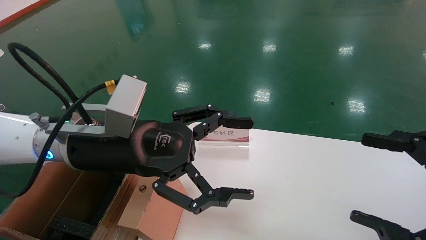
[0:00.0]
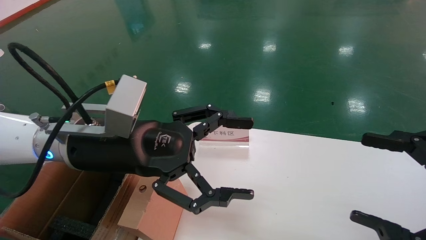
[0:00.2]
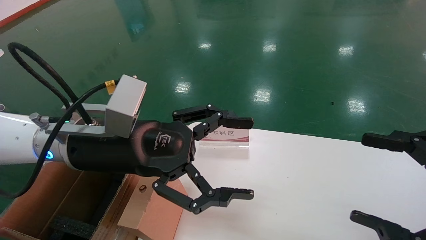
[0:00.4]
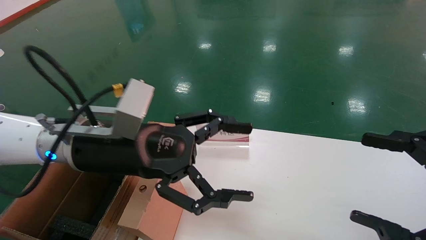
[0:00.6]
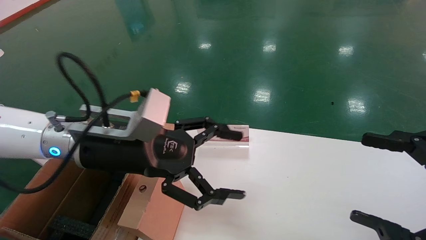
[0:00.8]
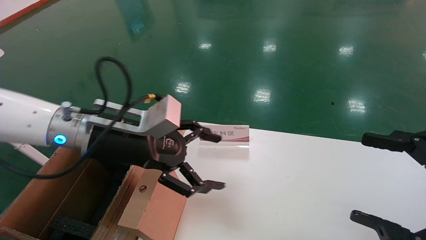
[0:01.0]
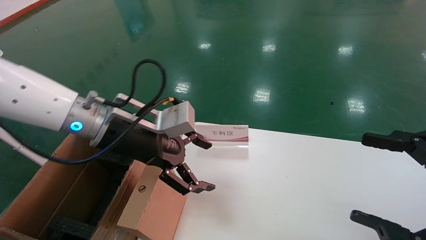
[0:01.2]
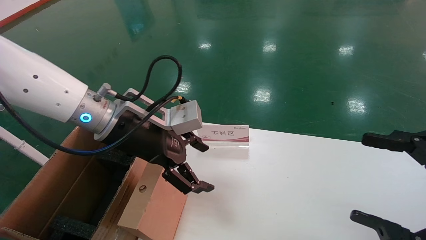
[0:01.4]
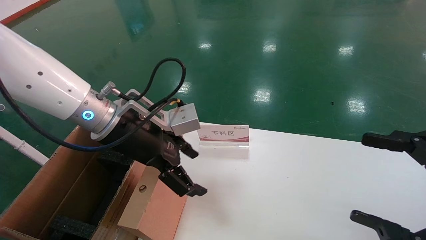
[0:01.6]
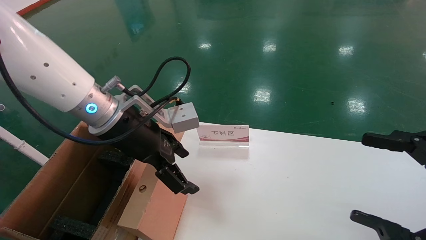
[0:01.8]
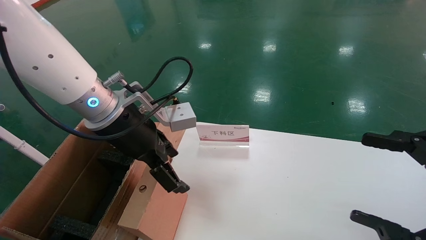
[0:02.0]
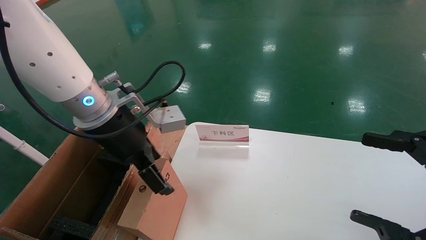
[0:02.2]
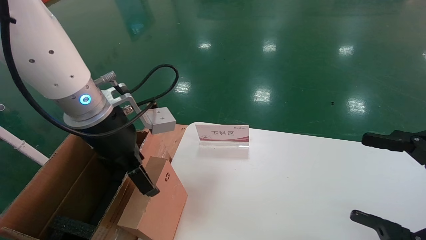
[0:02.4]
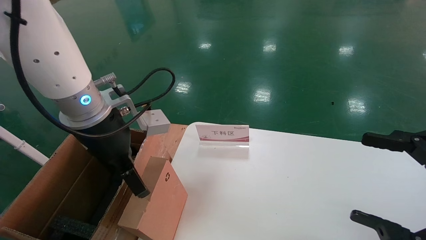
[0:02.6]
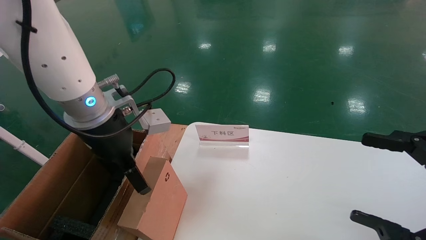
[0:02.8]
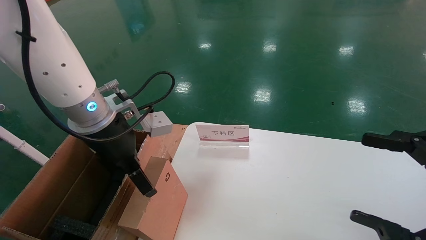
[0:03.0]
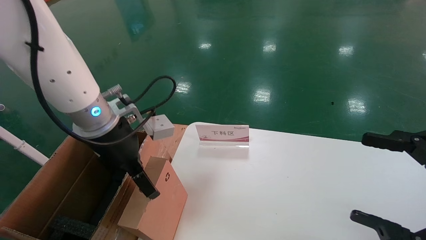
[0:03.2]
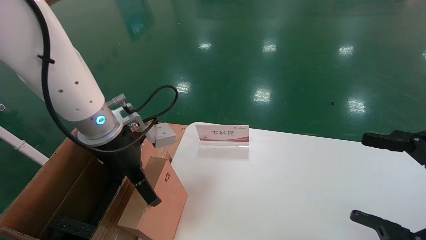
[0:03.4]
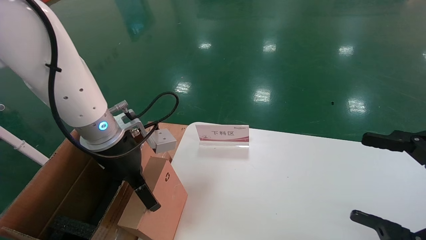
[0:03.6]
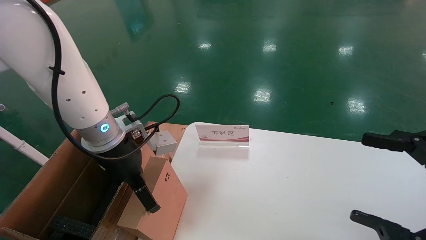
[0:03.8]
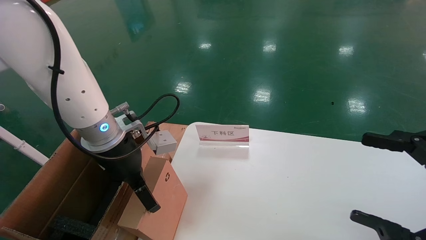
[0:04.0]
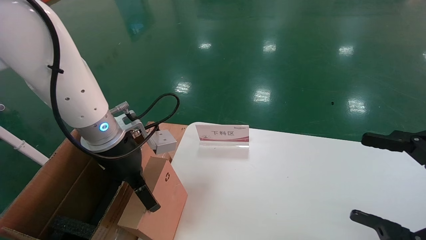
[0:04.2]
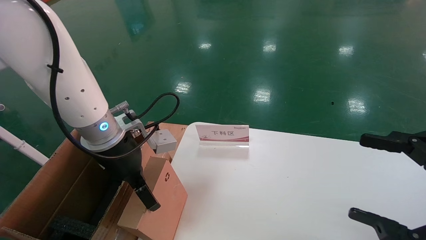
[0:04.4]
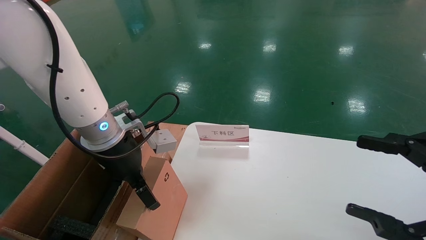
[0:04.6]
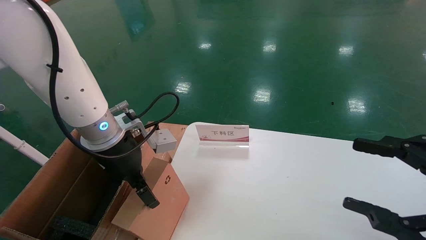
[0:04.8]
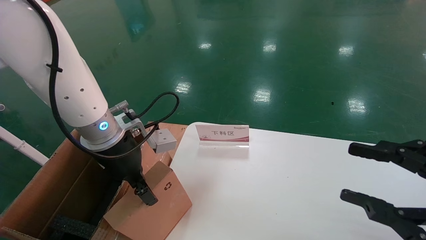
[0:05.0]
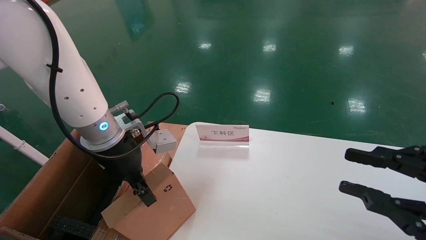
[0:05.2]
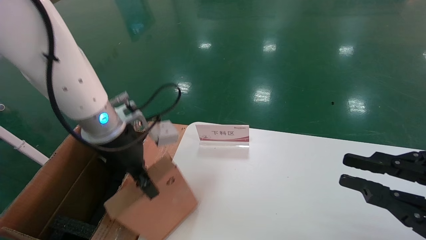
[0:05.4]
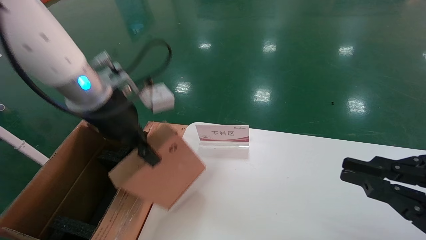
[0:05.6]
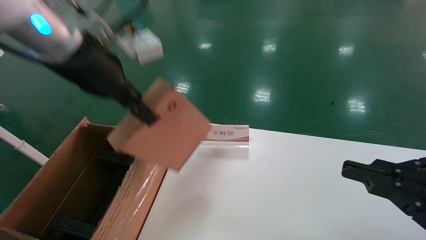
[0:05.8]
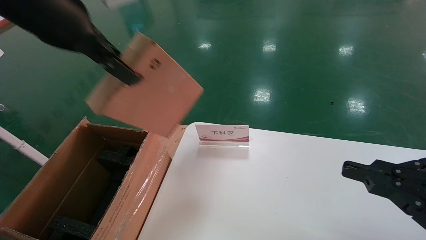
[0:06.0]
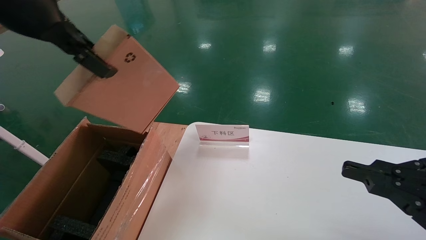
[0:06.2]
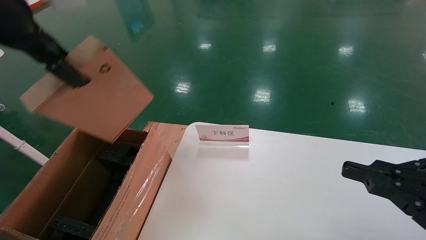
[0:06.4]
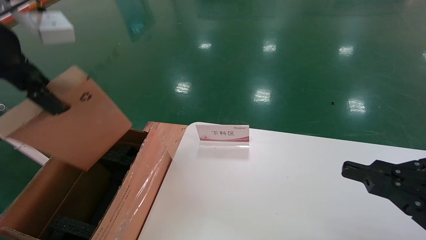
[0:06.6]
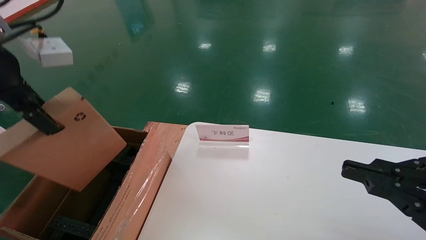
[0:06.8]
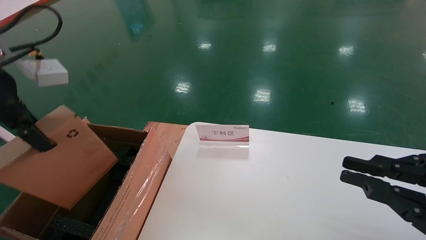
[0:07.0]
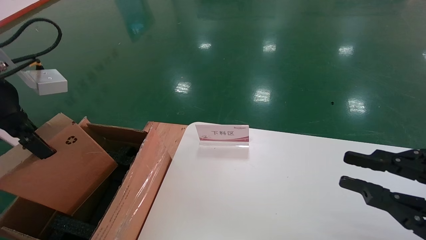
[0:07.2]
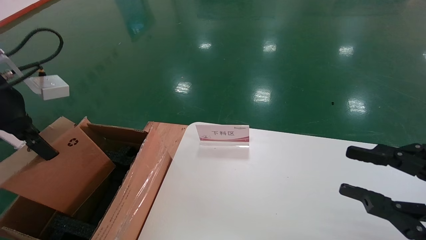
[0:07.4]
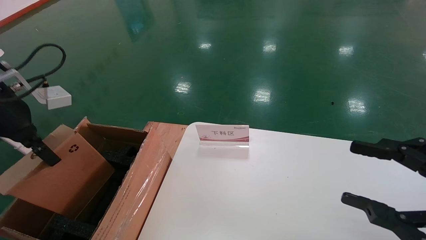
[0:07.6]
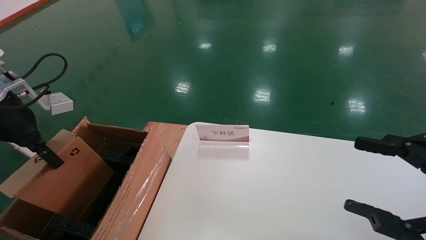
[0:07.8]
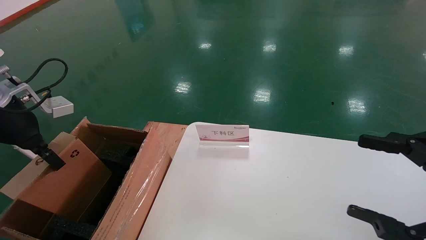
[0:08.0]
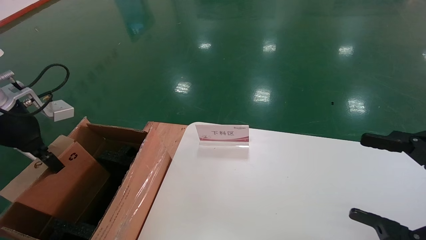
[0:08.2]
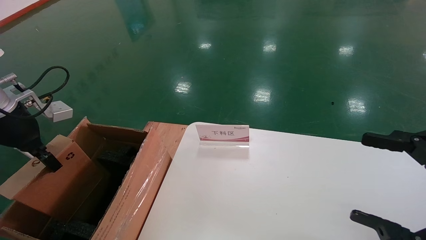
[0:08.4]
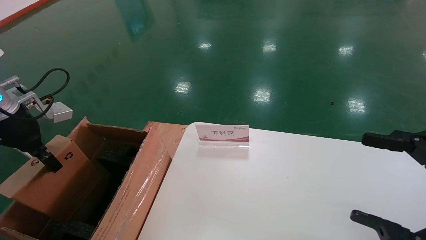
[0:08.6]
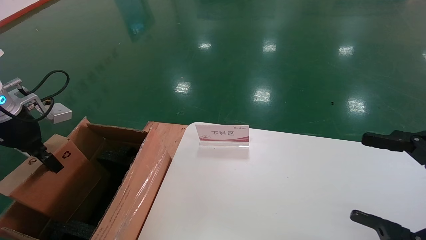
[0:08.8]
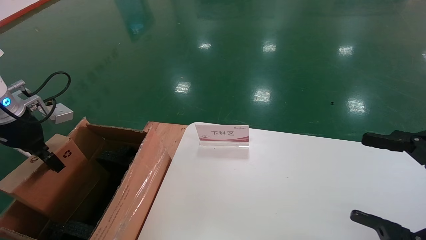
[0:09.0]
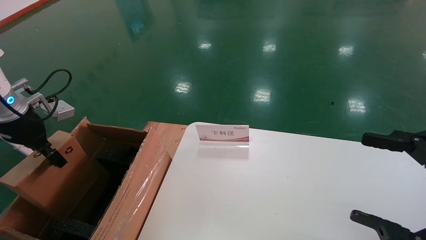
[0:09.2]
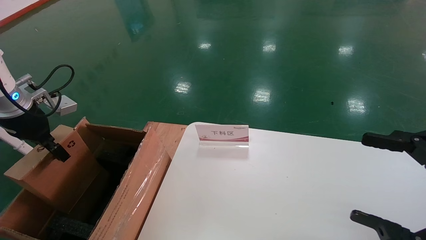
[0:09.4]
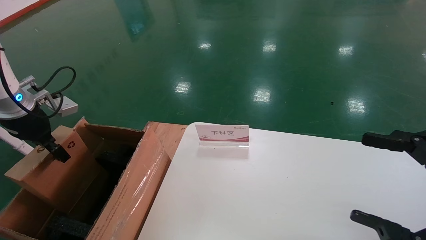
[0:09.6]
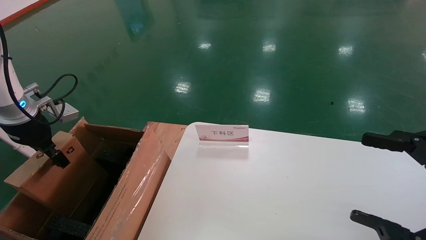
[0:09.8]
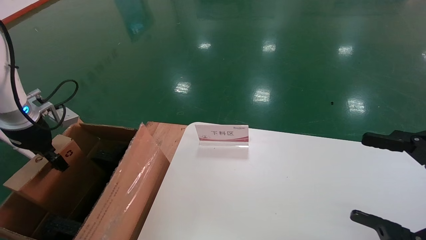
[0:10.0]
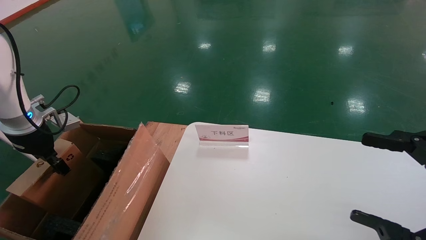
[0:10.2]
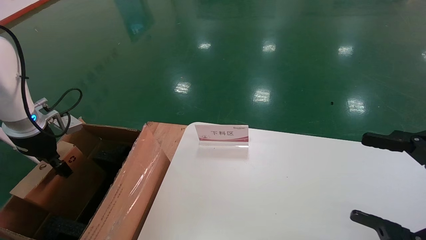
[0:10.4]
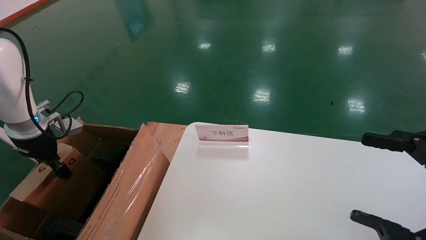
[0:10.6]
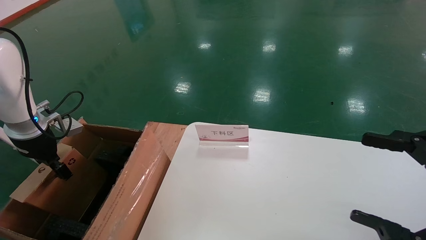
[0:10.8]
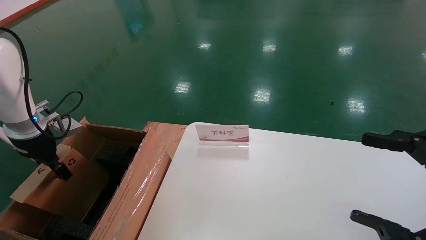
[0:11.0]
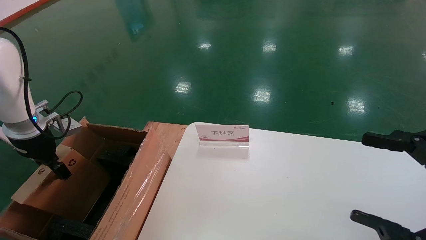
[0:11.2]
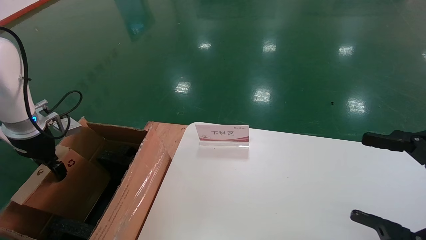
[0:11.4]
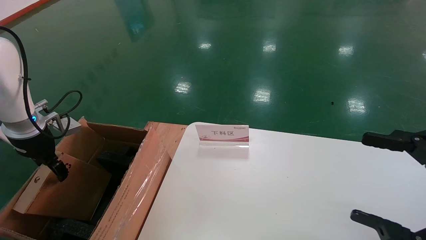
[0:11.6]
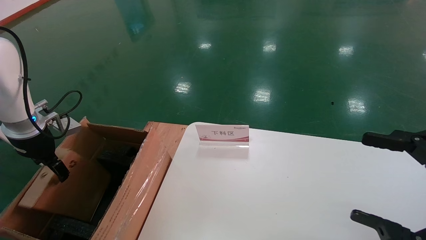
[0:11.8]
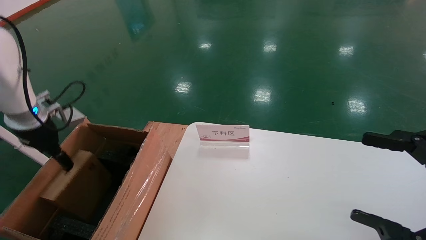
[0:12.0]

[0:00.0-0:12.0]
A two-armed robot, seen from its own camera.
Task of the whole recording: pick up the small cardboard box and load it into the large cardboard box.
Step, 0:00.8 to 0:05.4: Pick up the mouse and power cord box.
0:00.0 to 0:01.6: The left gripper moves forward, roughly 5 cm.
0:03.0 to 0:04.4: There are only small adjustments of the grippers.
0:04.4 to 0:06.0: The right gripper closes. Meanwhile the left gripper heads upward, covering roughly 20 cm, and closes up.
0:06.0 to 0:07.6: The left gripper travels to the left and downward by approximately 20 cm. Meanwhile the right gripper opens up.
0:07.6 to 0:09.0: The left gripper moves downward and to the left, about 10 cm. Meanwhile the right gripper opens its fingers.
0:09.0 to 0:10.4: The left gripper is displaced downward by about 5 cm.
0:10.4 to 0:12.0: The left gripper opens up.

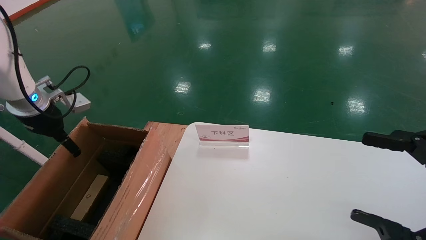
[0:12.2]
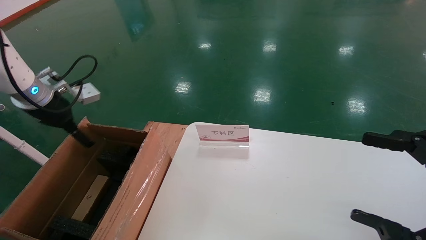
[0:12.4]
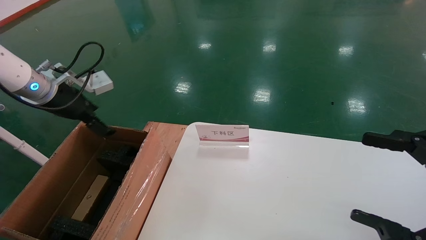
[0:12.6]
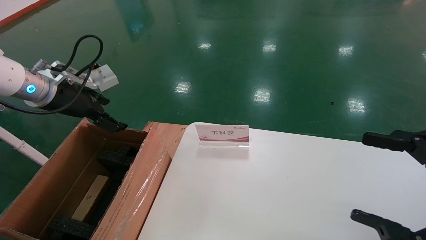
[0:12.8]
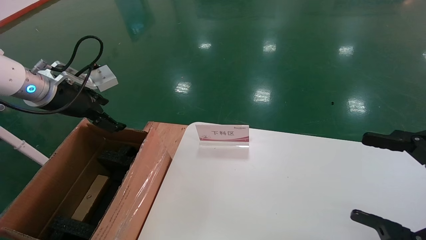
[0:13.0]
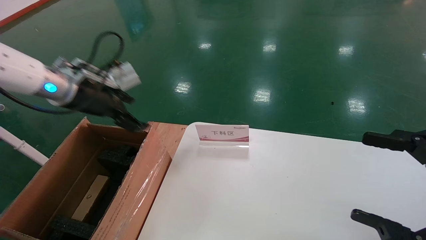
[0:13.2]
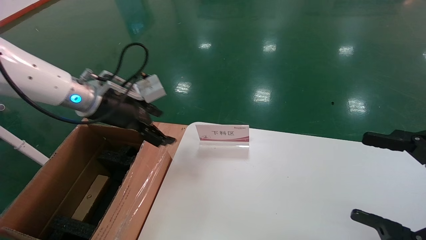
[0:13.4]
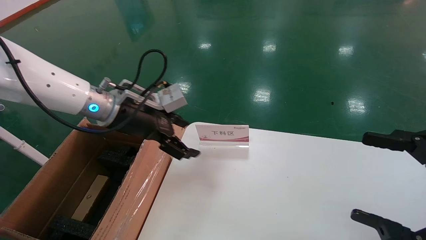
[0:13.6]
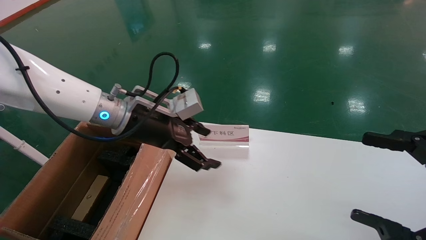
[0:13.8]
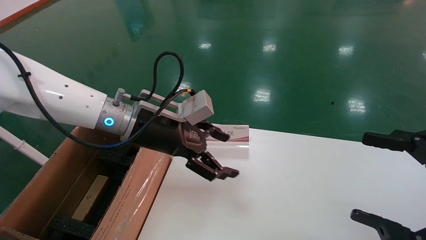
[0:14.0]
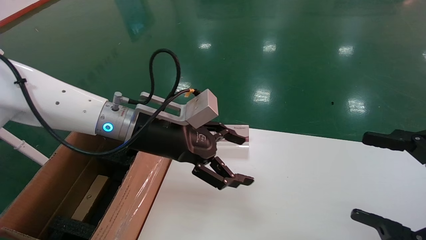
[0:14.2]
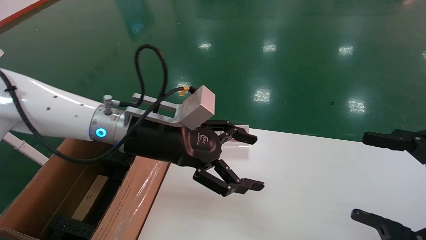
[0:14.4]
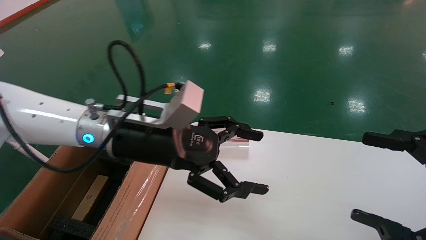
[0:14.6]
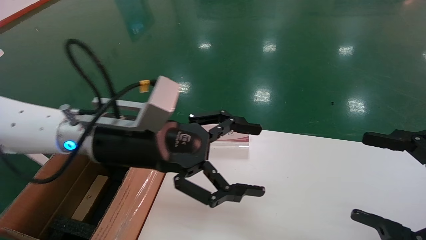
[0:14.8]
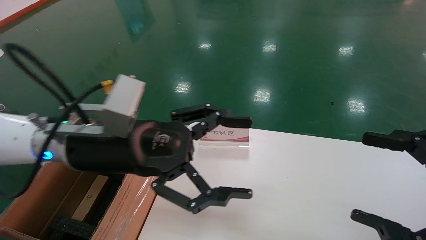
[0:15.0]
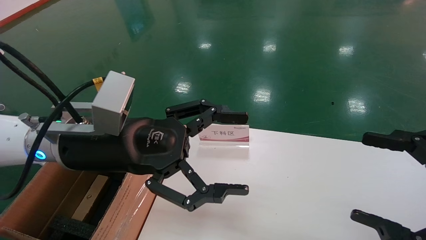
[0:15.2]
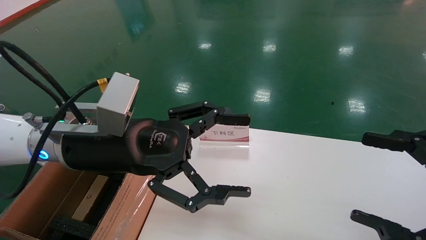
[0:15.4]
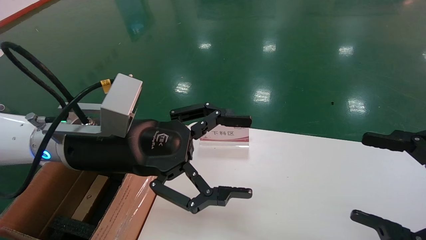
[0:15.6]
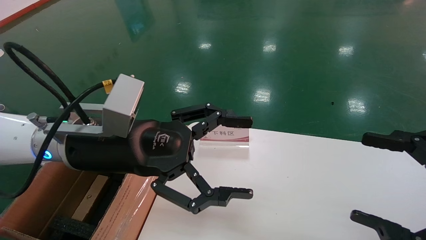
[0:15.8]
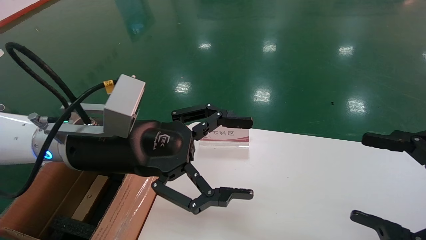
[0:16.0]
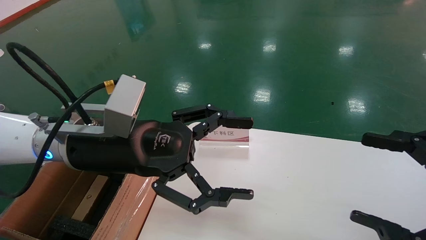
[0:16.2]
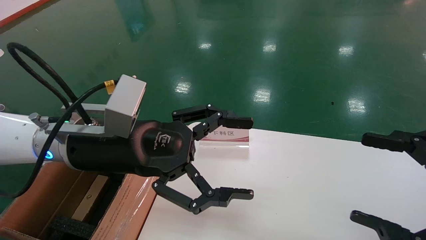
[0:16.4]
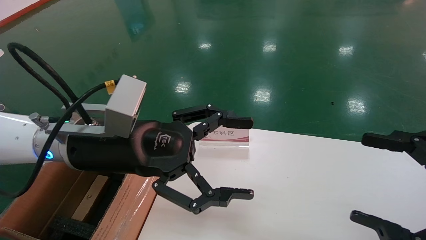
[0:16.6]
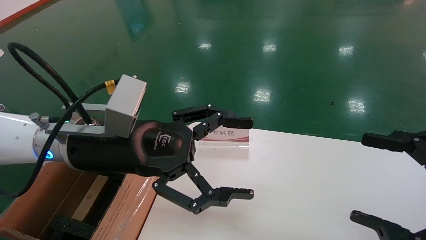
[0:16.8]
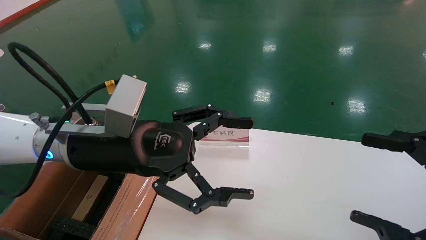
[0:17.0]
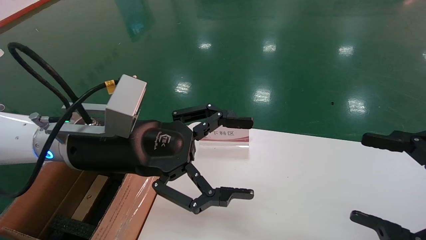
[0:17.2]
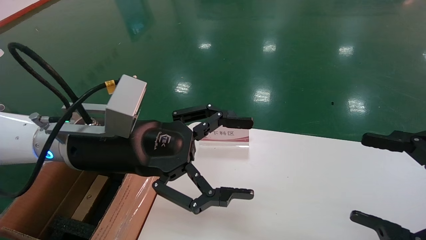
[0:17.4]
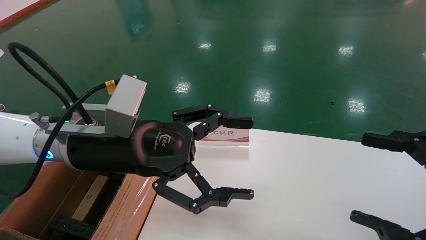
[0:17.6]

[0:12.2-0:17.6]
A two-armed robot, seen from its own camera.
Task of the whole recording: pick up the small cardboard box and load it into the large cardboard box.
0:12.2 to 0:13.6: The left gripper moves to the right, about 20 cm.
0:13.6 to 0:15.0: The left gripper shifts about 10 cm backward and to the right.
0:15.0 to 0:17.6: Both grippers stay about where they are.
